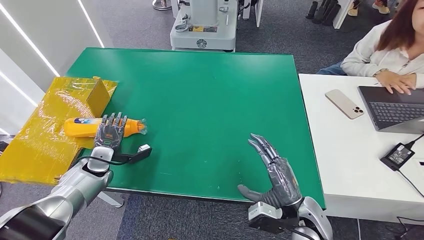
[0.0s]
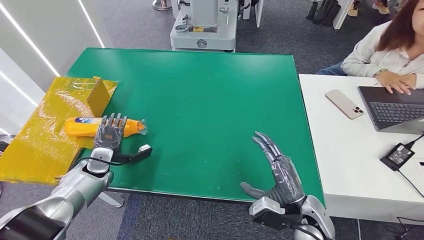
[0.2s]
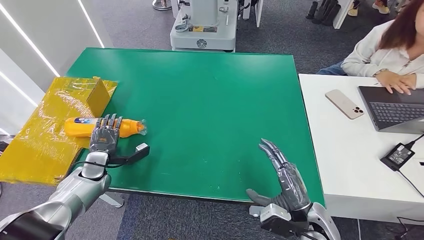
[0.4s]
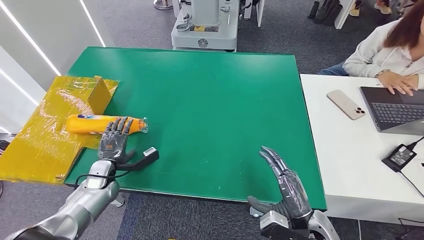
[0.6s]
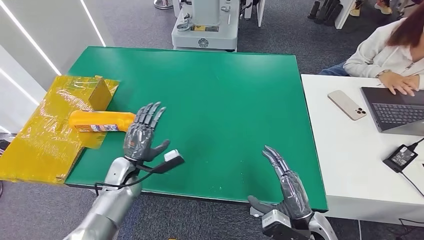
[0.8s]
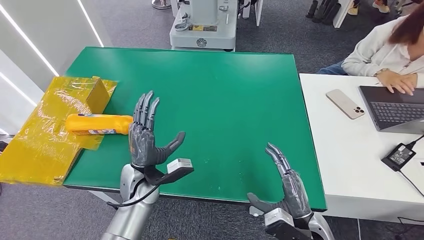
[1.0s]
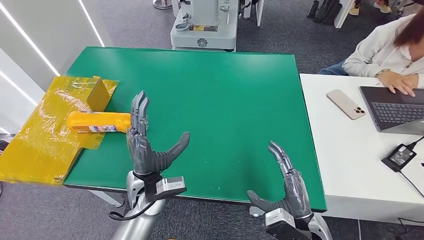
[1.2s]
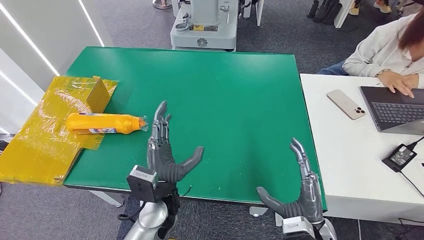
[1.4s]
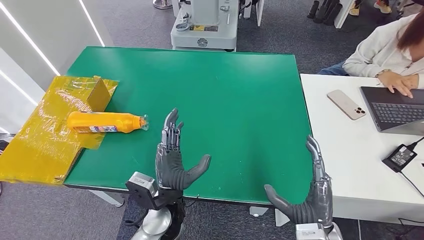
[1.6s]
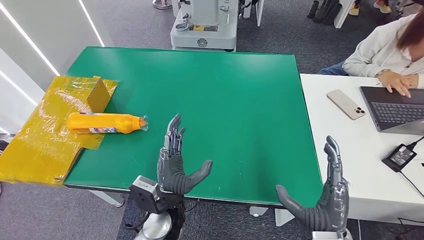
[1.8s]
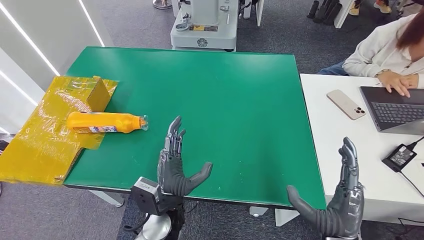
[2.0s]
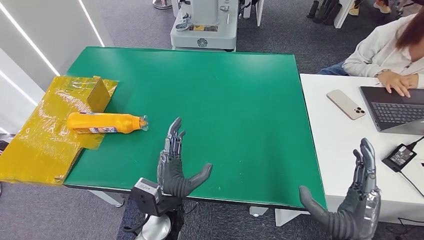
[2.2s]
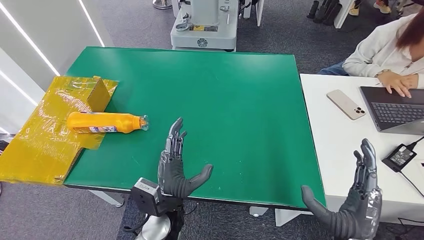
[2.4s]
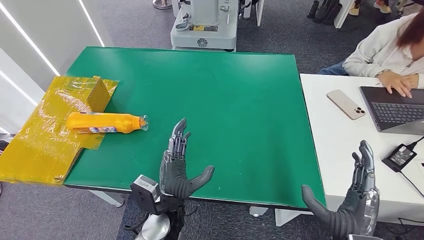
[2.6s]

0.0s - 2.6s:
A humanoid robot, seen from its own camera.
Step, 0.0s - 2.6s: Turn the bottle to the front side.
0.0s - 1.2s: The left hand travels to the right by roughly 20 cm.
1.2s - 2.6s: The right hand goes roughly 5 cm upward; the left hand heads backward and to the right, covering some 5 cm.
